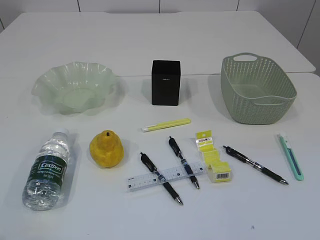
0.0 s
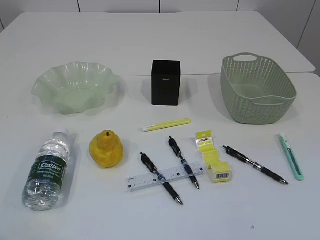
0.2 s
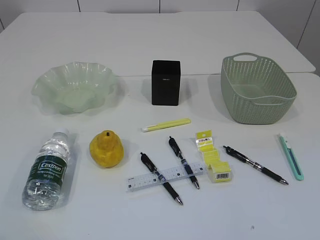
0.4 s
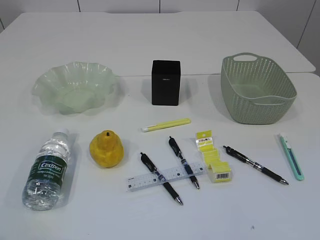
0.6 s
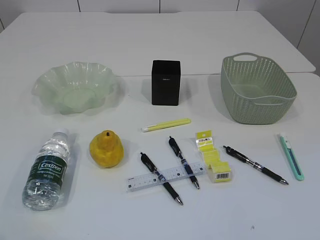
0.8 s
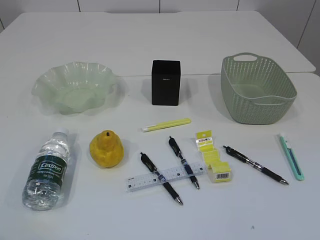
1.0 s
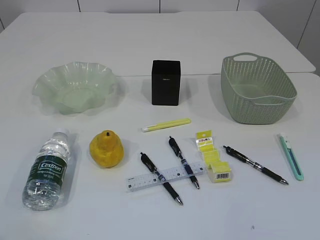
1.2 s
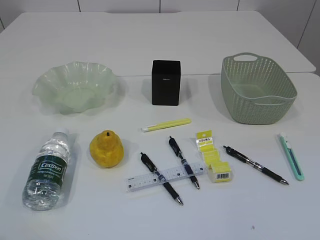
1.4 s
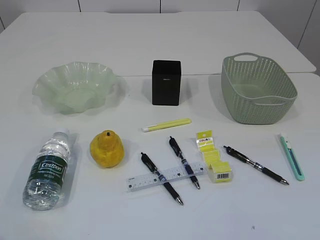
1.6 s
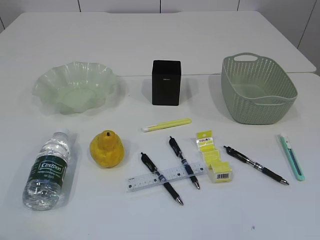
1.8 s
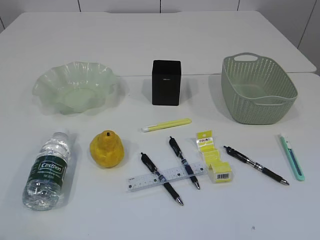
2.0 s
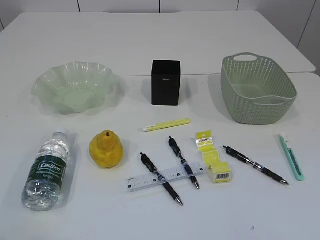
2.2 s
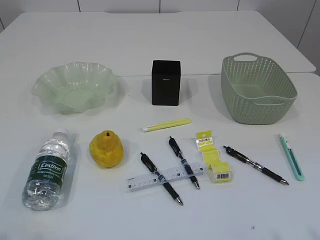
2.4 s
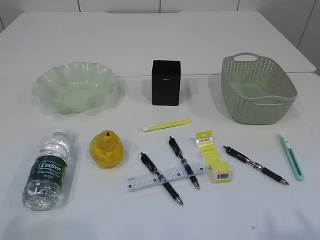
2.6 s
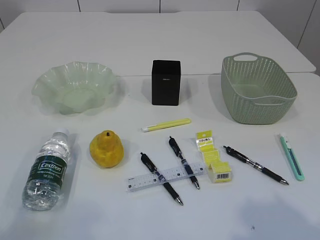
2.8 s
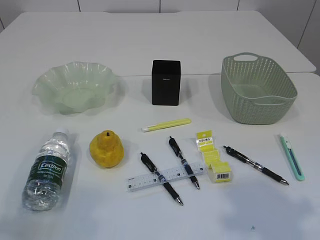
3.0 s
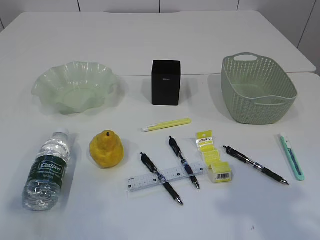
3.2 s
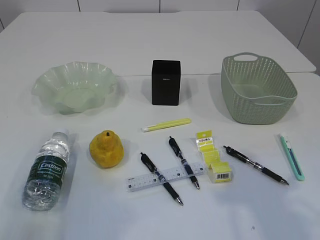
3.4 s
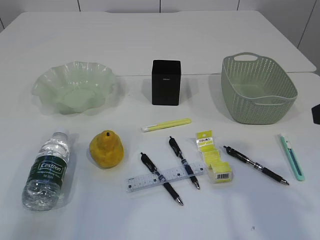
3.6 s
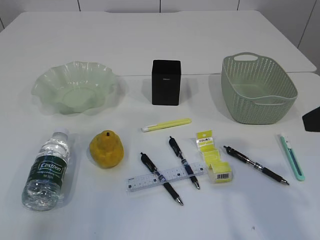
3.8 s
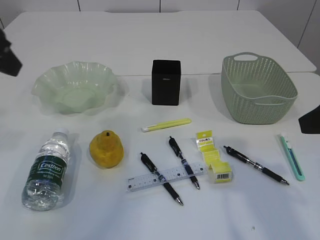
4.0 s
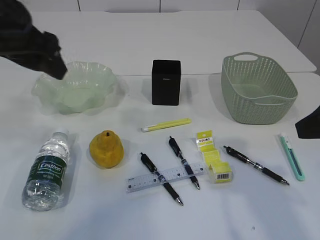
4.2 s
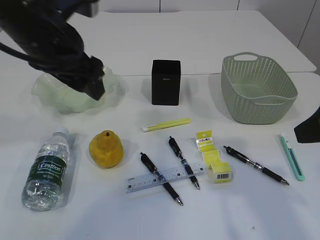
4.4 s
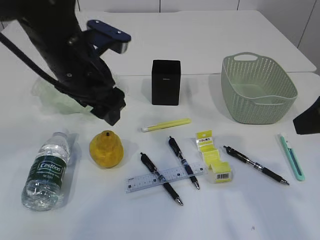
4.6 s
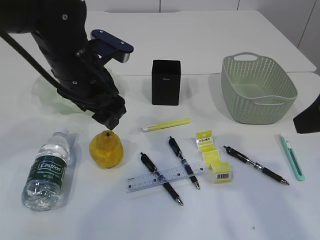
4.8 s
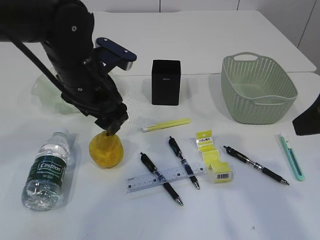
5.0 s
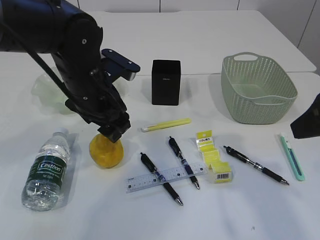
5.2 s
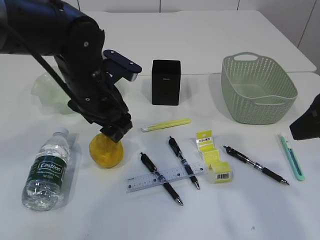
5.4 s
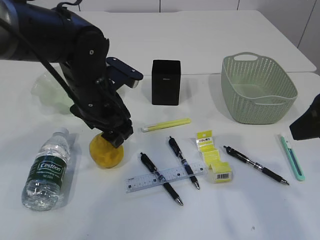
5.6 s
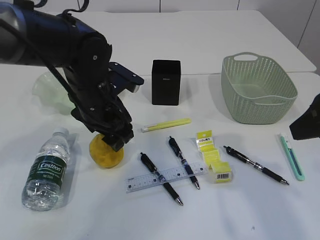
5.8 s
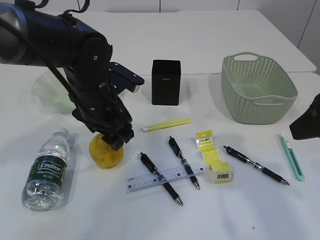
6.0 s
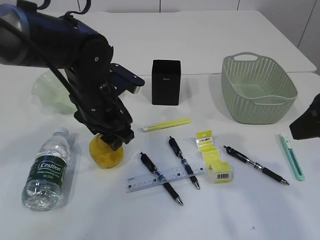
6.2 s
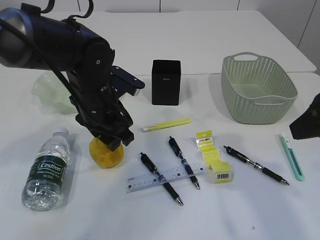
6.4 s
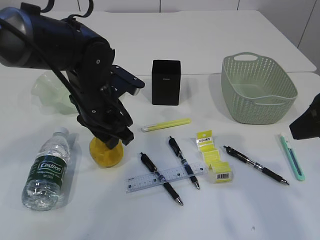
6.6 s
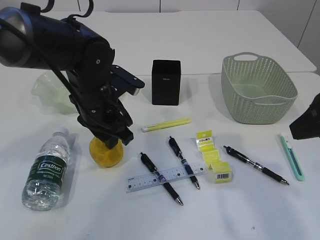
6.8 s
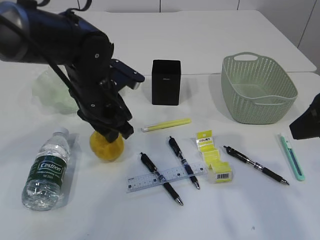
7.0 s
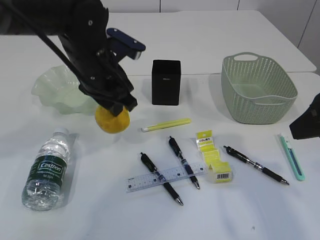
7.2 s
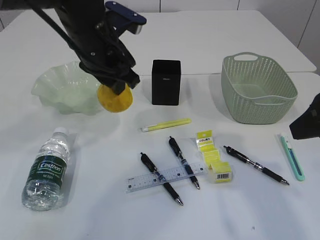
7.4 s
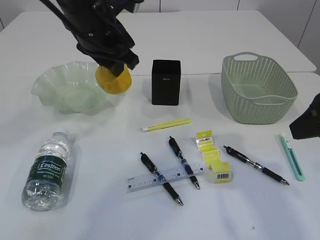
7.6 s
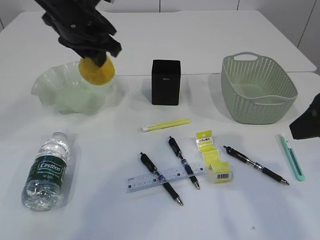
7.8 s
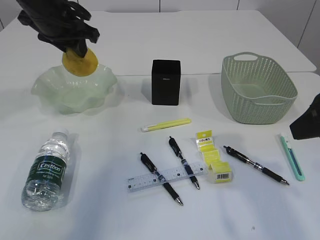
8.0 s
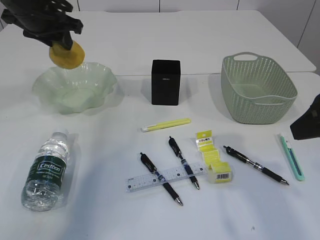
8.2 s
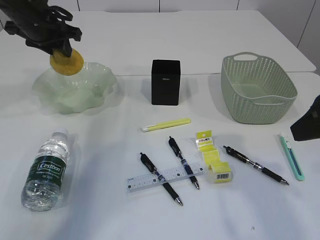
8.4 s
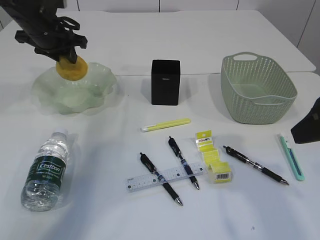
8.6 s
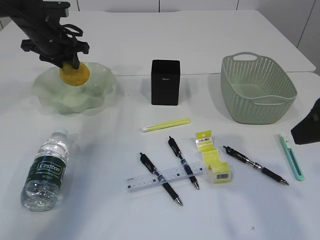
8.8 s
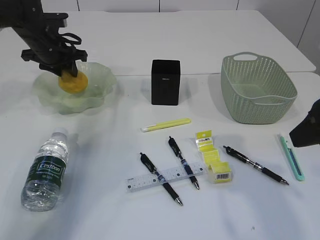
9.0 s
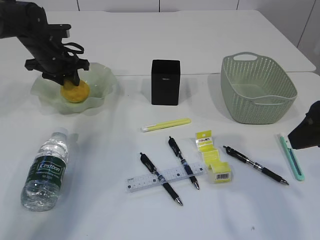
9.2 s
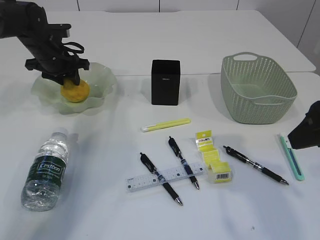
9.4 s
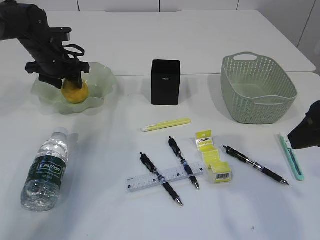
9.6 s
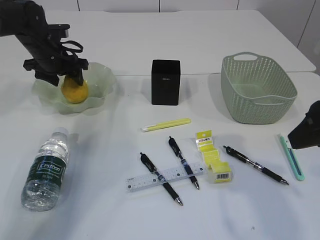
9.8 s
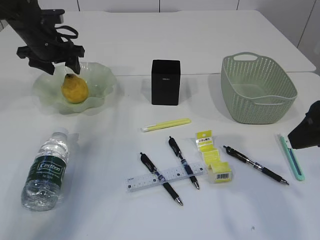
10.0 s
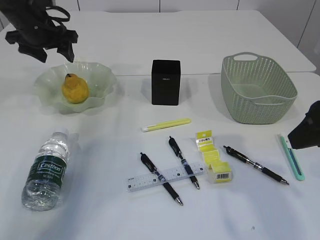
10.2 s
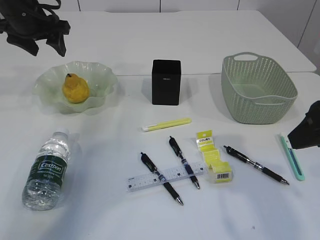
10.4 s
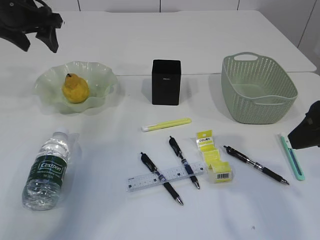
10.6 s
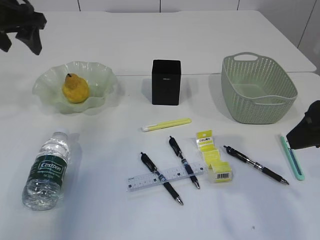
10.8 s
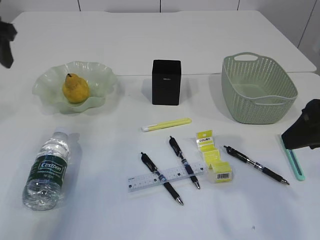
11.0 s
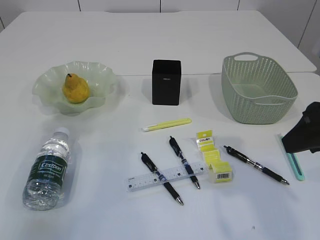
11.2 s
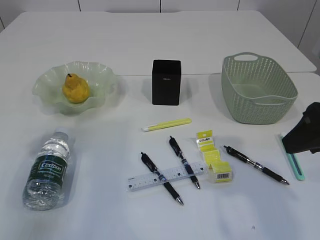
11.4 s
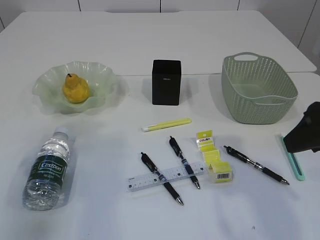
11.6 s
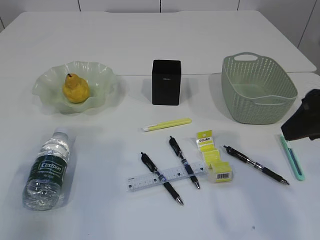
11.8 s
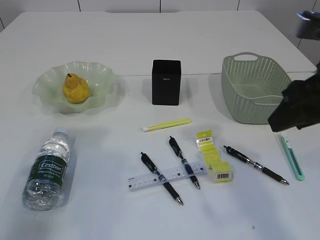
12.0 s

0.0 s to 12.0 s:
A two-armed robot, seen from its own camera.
Step, 7.6 to 10.2 s: Place the pear in the plate.
1.6 to 3.0 s: The left gripper goes about 5 cm forward.
3.0 to 4.4 s: The left gripper travels forward and to the right by approximately 30 cm, and opens up; the right gripper shifts about 10 cm forward.
4.4 to 6.0 s: The left gripper shifts some 15 cm downward and to the right.
6.0 to 7.6 s: The left gripper heads upward, covering roughly 10 cm, and closes its fingers.
7.6 to 9.0 s: The left gripper shifts roughly 20 cm to the left, forward and downward.
9.0 to 10.4 s: The left gripper is displaced upward by some 10 cm, and opens.
10.4 to 12.0 s: The left gripper moves backward, approximately 25 cm.

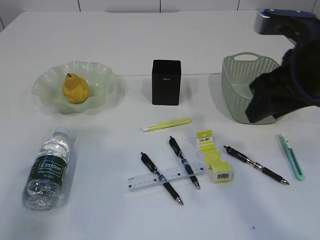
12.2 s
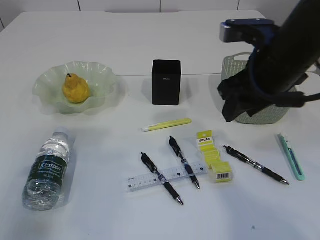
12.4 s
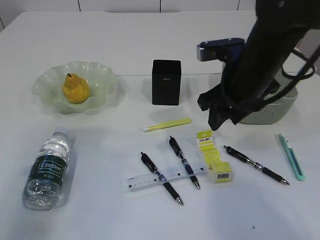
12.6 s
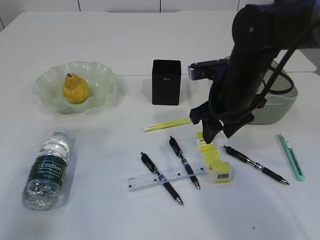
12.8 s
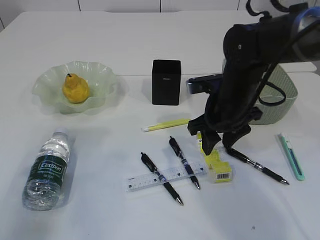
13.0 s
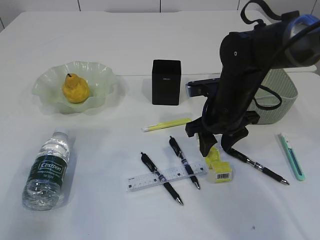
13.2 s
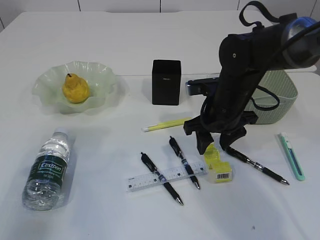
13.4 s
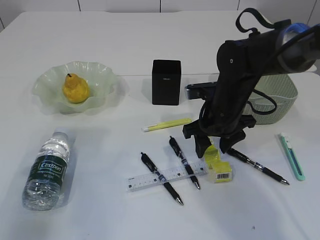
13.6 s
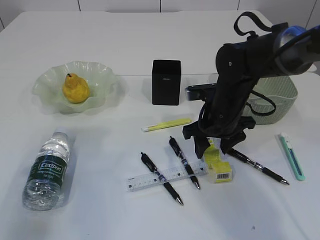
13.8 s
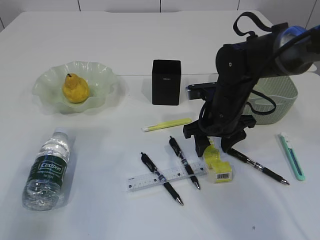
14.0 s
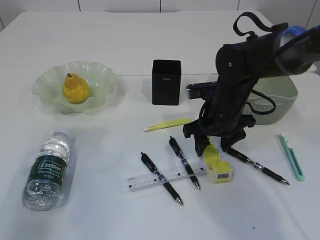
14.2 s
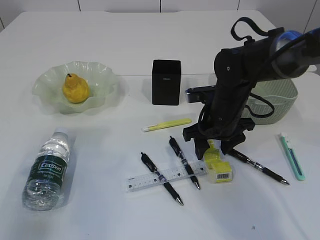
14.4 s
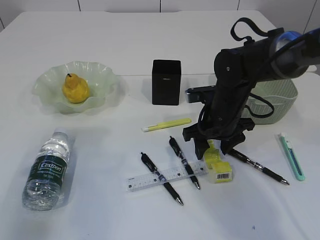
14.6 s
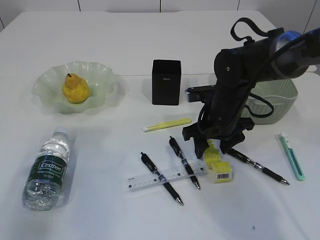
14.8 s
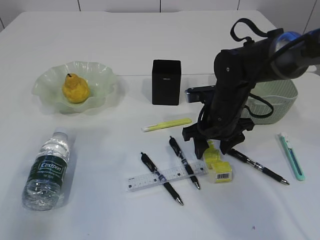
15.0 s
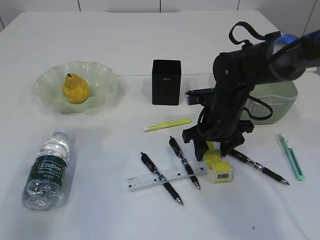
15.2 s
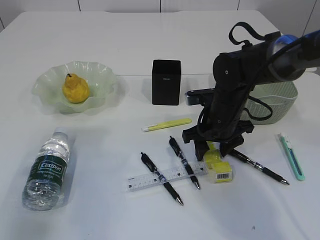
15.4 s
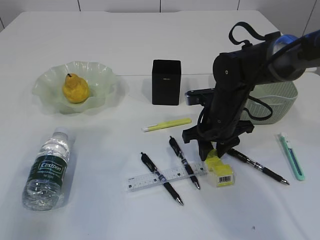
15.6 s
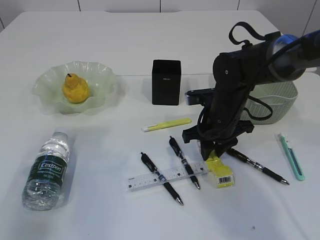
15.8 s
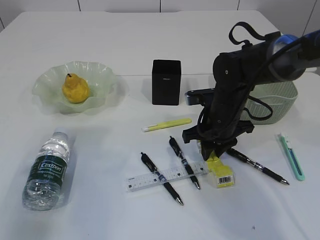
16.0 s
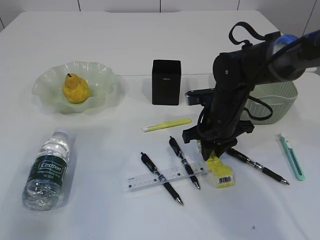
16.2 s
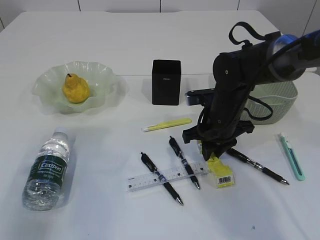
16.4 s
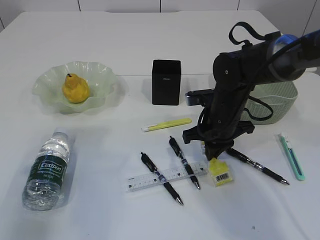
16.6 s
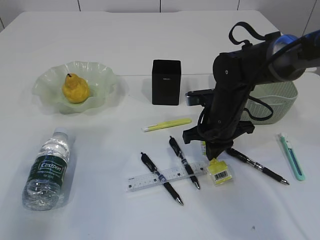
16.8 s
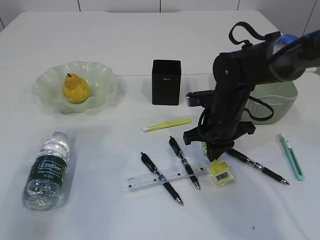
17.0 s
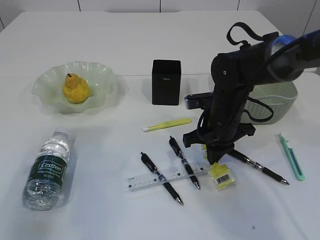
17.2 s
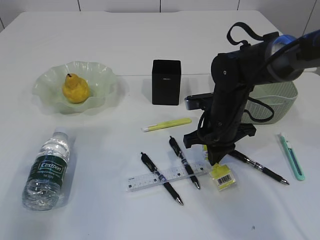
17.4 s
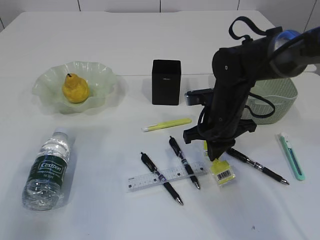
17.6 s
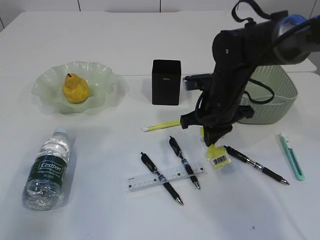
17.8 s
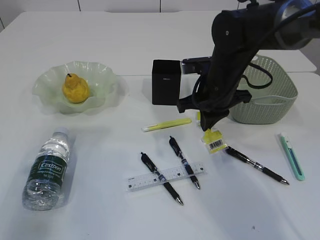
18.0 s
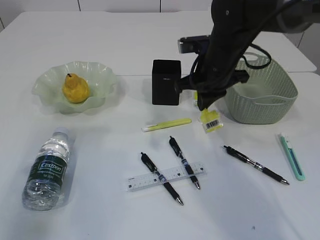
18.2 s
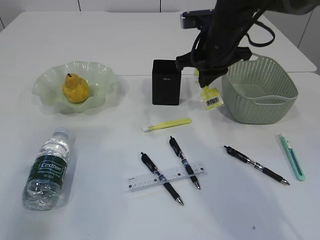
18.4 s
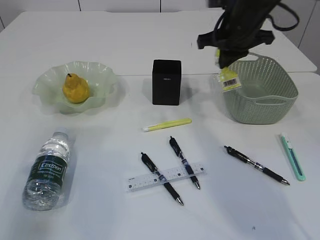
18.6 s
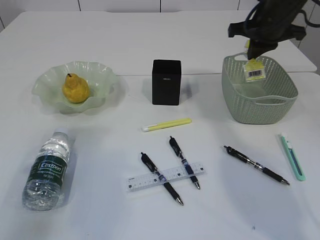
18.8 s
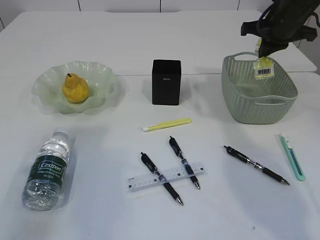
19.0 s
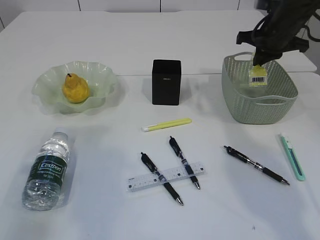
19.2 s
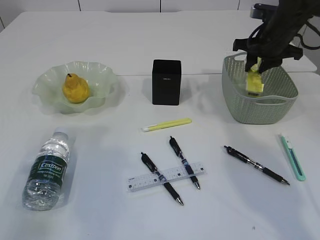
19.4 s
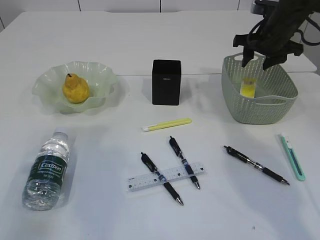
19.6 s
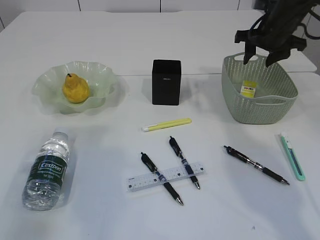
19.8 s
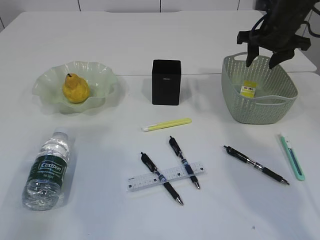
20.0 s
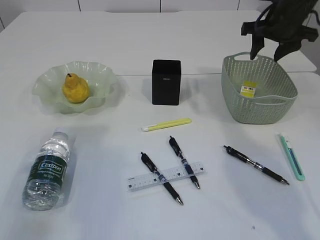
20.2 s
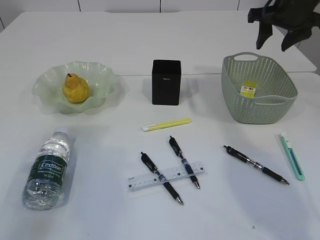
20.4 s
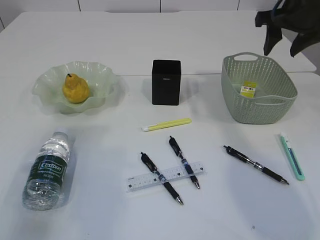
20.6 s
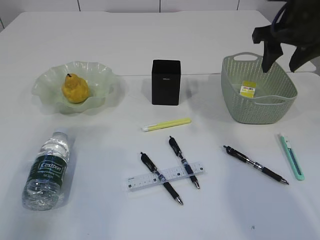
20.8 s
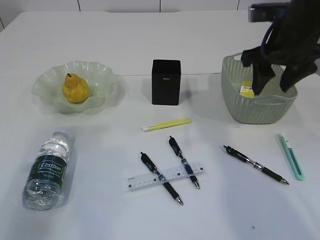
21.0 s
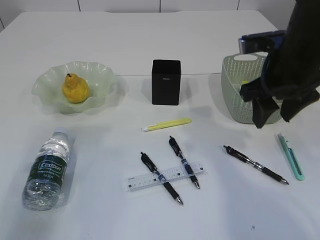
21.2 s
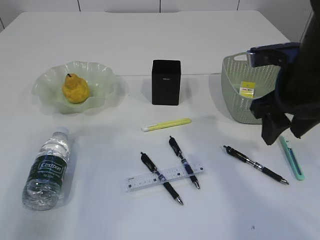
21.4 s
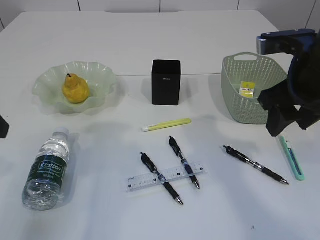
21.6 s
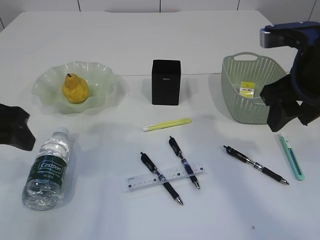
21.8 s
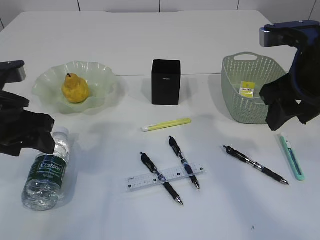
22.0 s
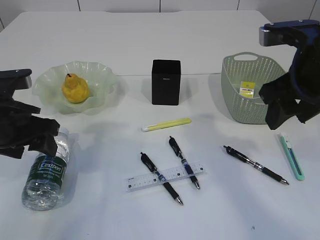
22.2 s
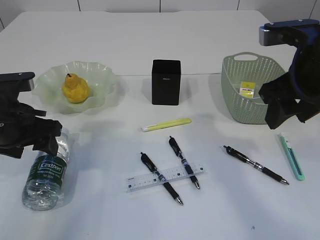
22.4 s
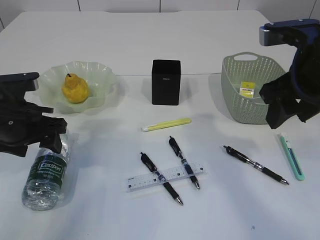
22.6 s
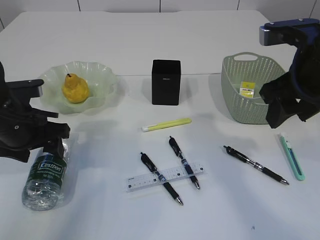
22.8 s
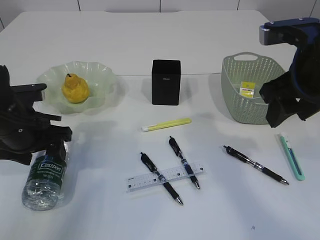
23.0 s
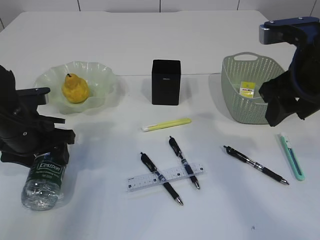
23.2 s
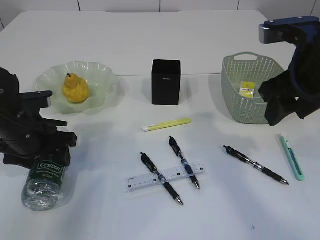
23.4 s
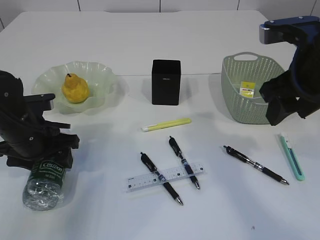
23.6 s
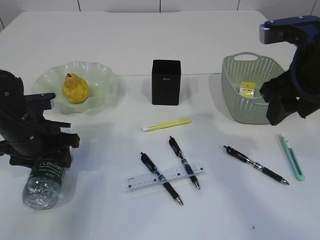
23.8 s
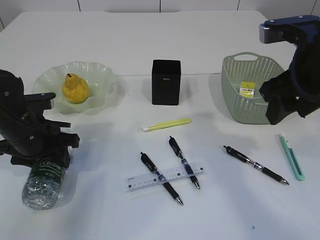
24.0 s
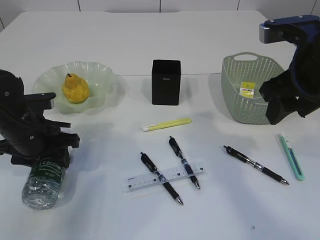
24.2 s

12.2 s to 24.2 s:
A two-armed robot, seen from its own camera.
Step, 12.2 to 18.0 s: Pick up the waste paper.
Step, 18.2 to 20.8 s: Place the waste paper in the basket.
12.2 to 13.8 s: The right gripper moves downward, forward and to the left, some 20 cm.
13.8 to 15.2 s: The grippers make only small movements.
15.2 to 16.6 s: The right gripper closes its fingers.
16.6 to 18.2 s: The right gripper shifts about 10 cm upward.
18.2 to 19.8 s: The right gripper is displaced to the right and forward by some 15 cm, and opens up.
19.8 to 21.2 s: The right gripper is displaced backward by some 15 cm.
21.2 to 22.6 s: The right gripper shifts approximately 5 cm backward; the left gripper shifts about 15 cm downward, forward and to the right.
22.6 to 24.2 s: The left gripper changes place by roughly 5 cm, and closes.
